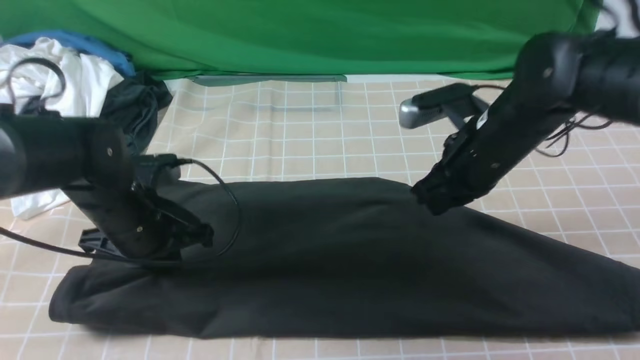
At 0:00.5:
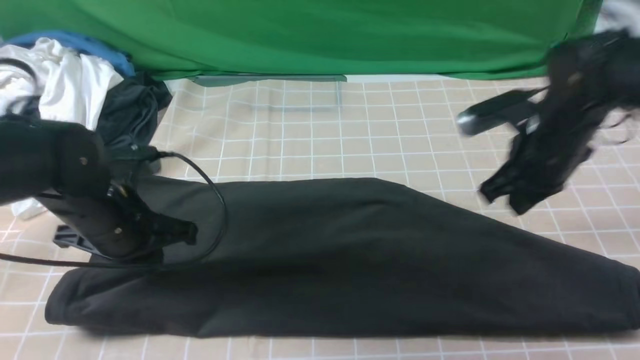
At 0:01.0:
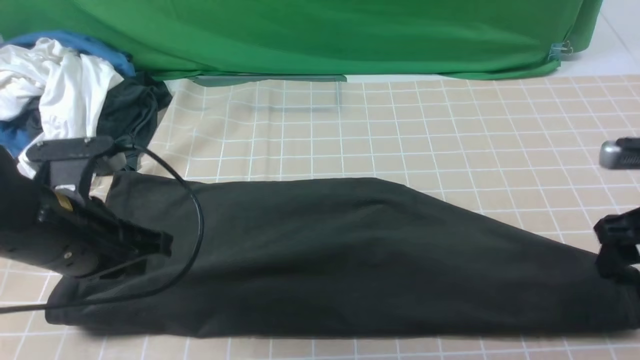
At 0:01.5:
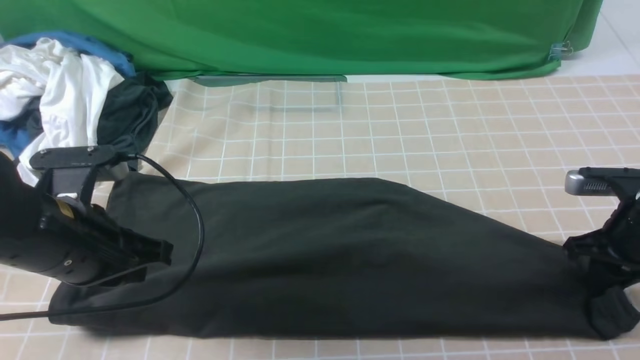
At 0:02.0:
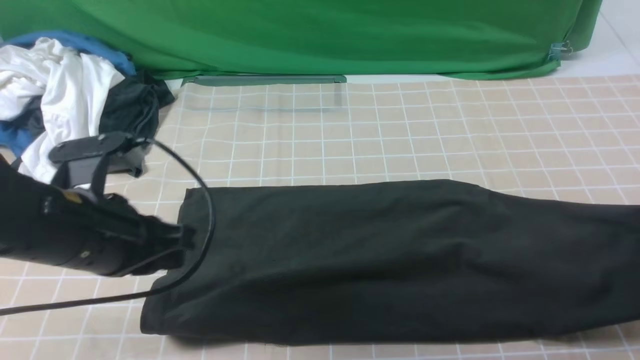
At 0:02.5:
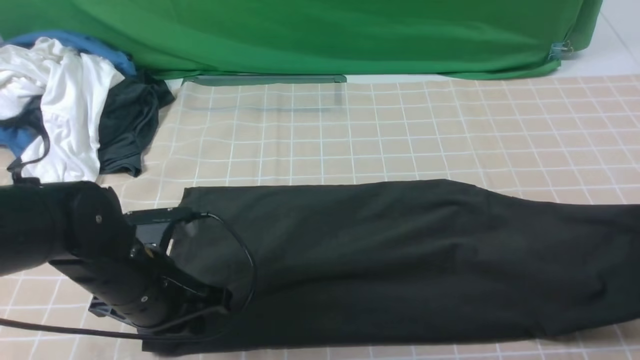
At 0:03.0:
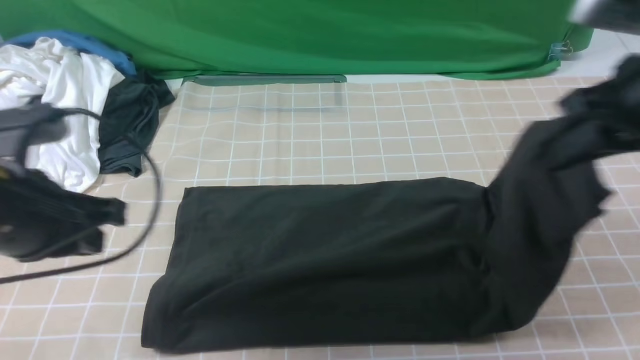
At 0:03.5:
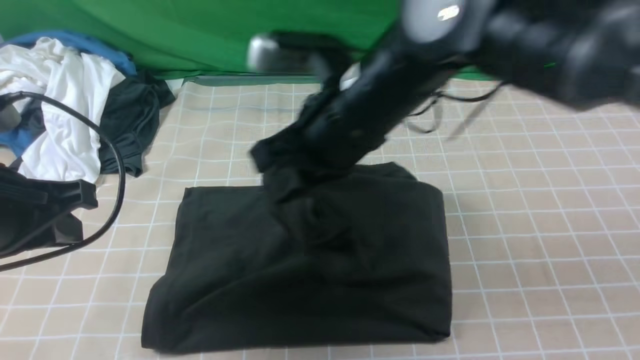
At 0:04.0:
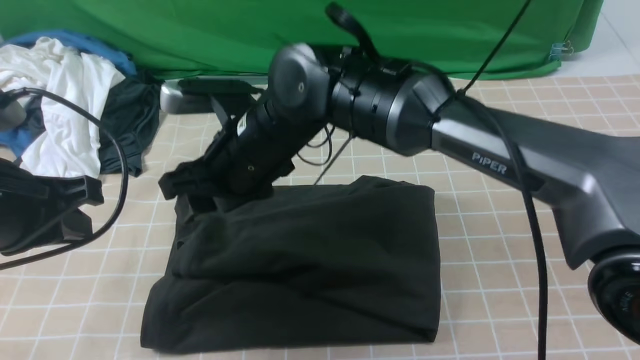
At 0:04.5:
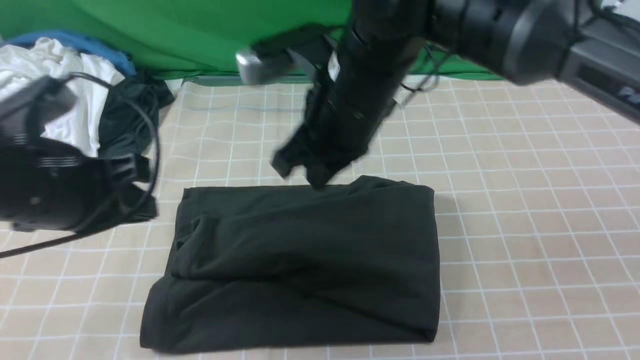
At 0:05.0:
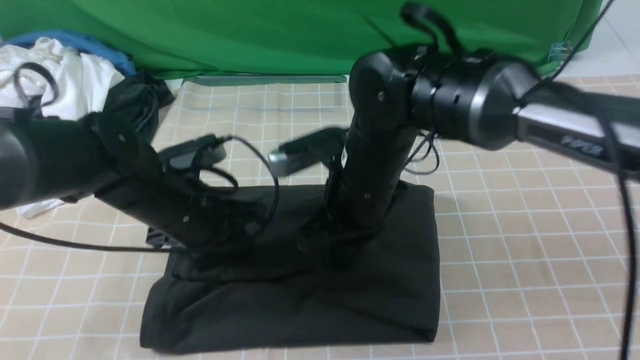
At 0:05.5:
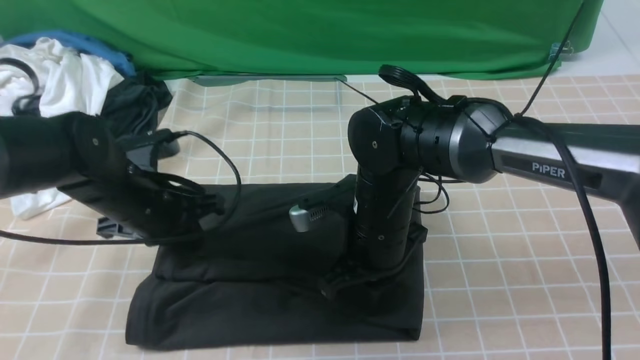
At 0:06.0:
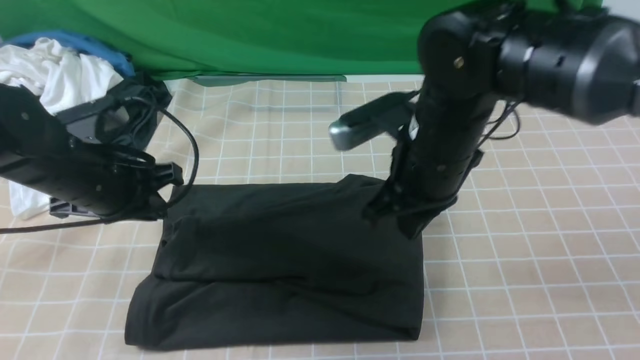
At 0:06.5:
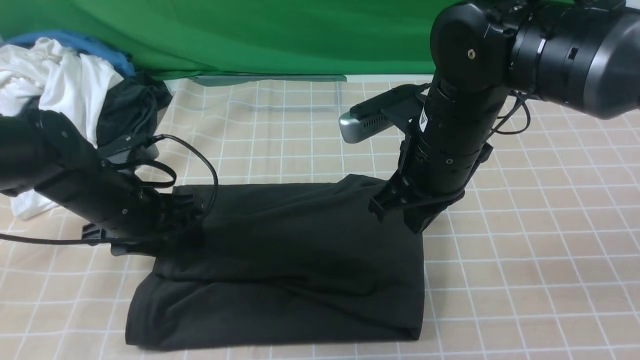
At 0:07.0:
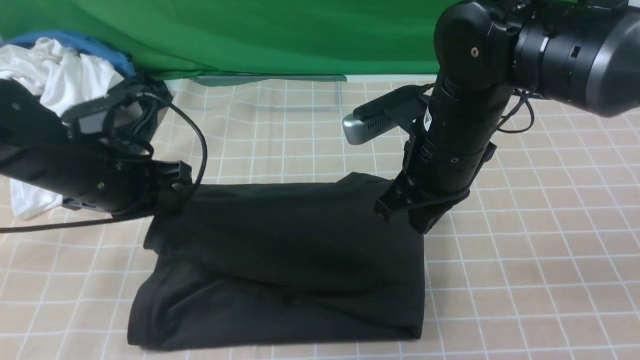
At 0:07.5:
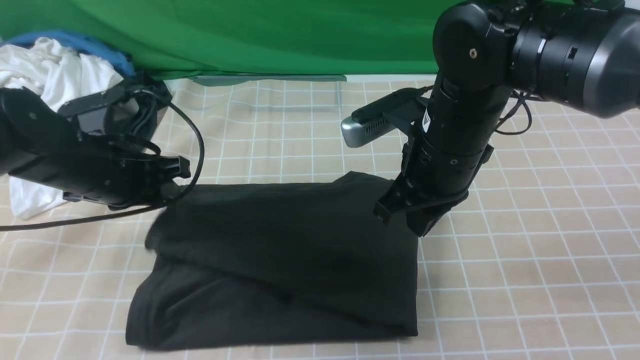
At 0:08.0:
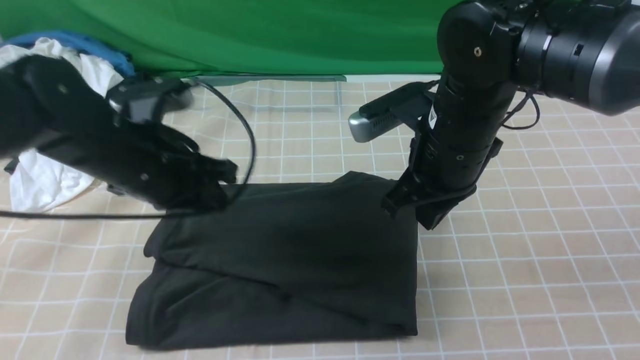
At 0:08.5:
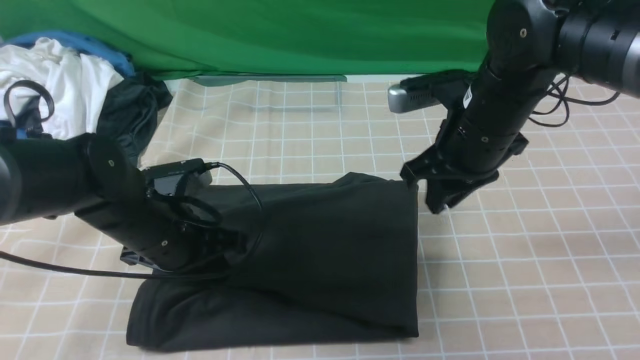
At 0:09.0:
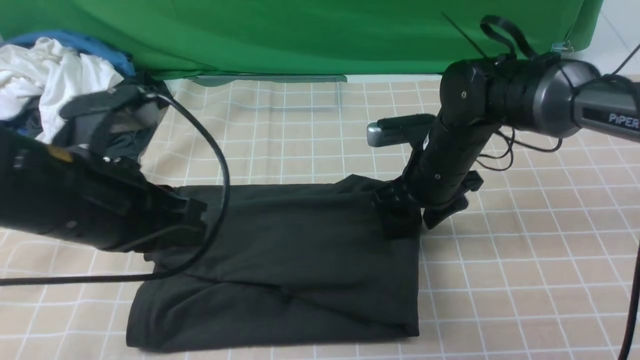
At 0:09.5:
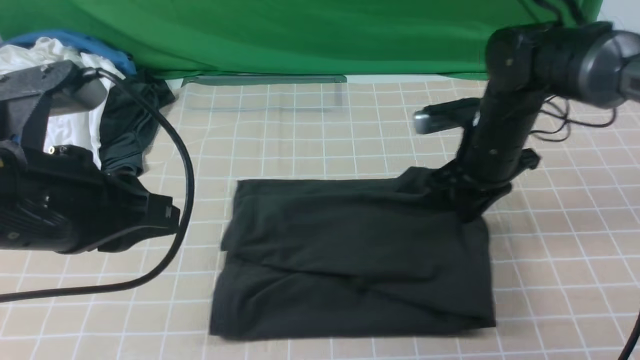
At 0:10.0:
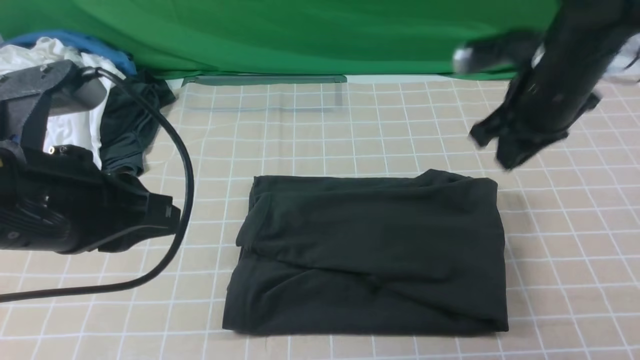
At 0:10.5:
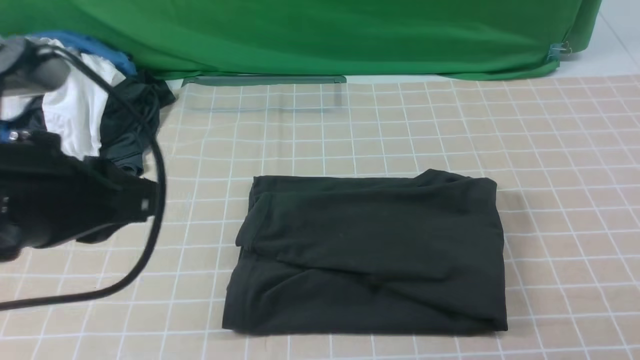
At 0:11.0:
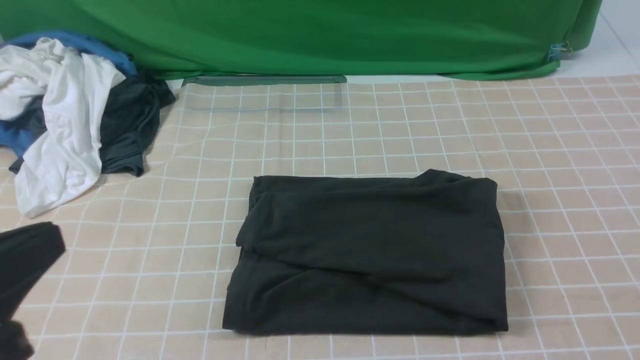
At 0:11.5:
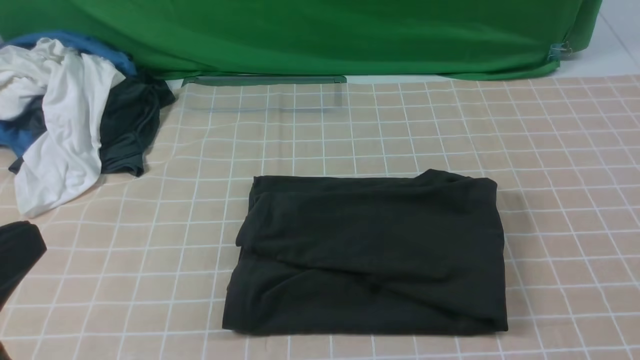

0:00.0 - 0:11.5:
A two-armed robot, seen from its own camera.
Step, 0:02.0 - 0:04.0: use the right arm to drag the right edge of the fabric to the left and folds it over the left edge.
0:00.0 - 0:02.0: The left gripper is displaced backward and upward by some 10 cm; the right gripper moves to the right, some 20 cm, and opens, then closes once more.
0:02.0 - 0:04.0: The left gripper goes roughly 10 cm to the left and upward, while the right gripper moves to the left, some 40 cm, and opens.
0:04.0 - 0:06.0: The left gripper travels forward and downward by some 15 cm. Meanwhile the right gripper shifts roughly 15 cm to the right, and closes.
0:06.0 - 0:07.5: The grippers move only a little.
0:07.5 - 0:09.5: The right gripper heads to the right, forward and downward, covering some 10 cm, and opens, then closes again. The left gripper is displaced backward and upward by some 20 cm, and closes its fingers.
0:09.5 - 0:11.5: The left gripper is displaced backward by some 15 cm; the right gripper shifts some 35 cm backward and upward.

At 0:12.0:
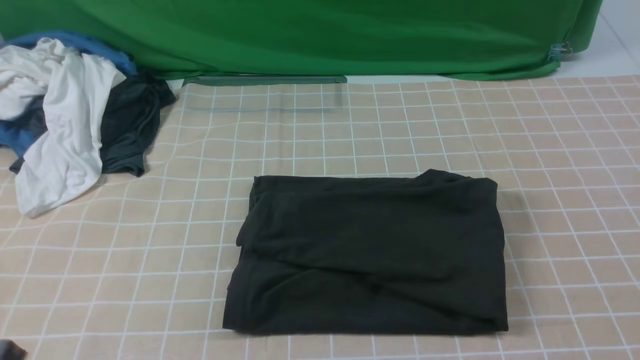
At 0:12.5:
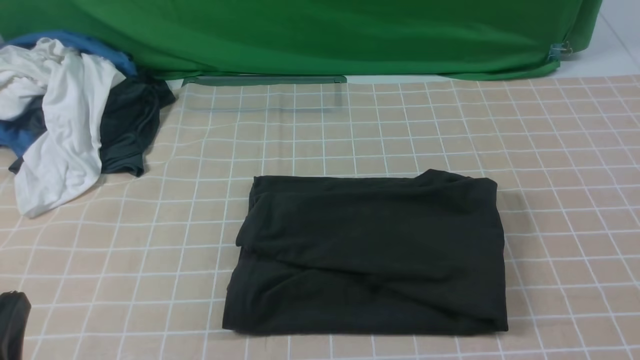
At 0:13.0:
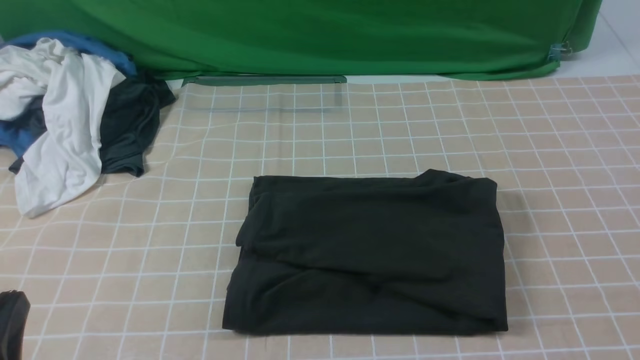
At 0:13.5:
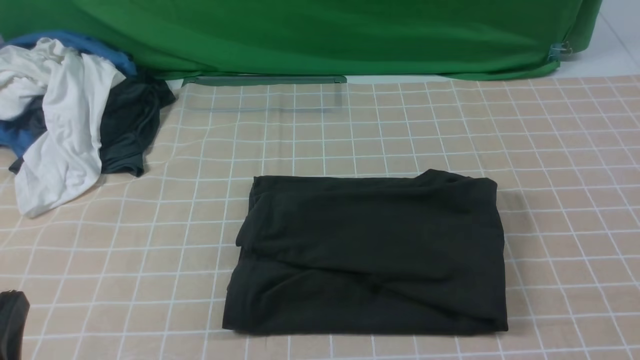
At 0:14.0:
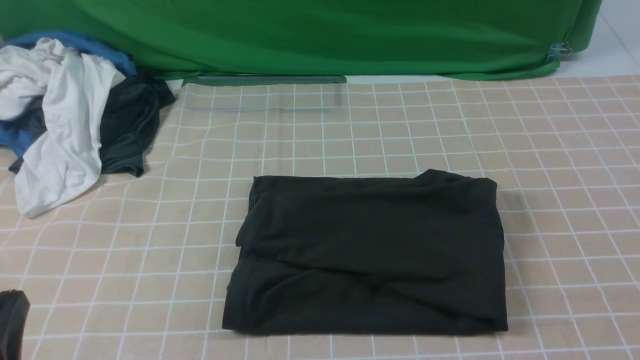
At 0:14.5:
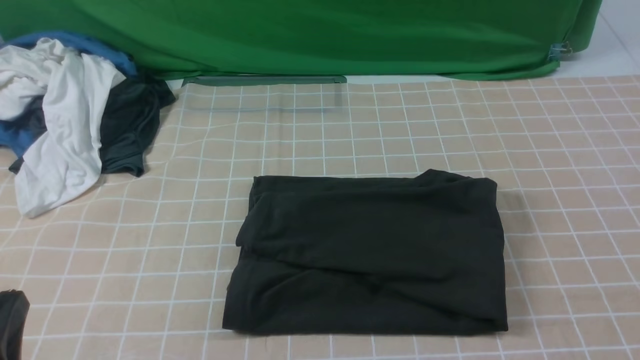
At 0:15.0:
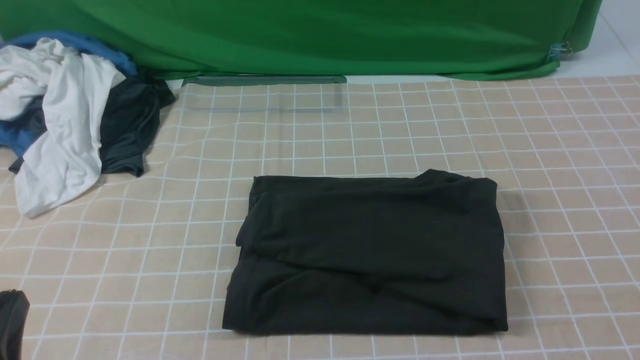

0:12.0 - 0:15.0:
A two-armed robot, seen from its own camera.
0:12.0 - 0:13.5: The left gripper shifts some 5 cm downward.

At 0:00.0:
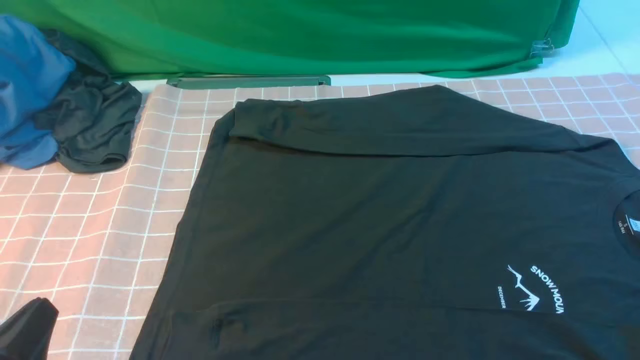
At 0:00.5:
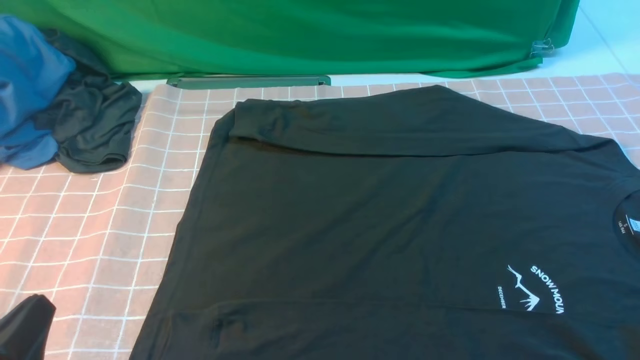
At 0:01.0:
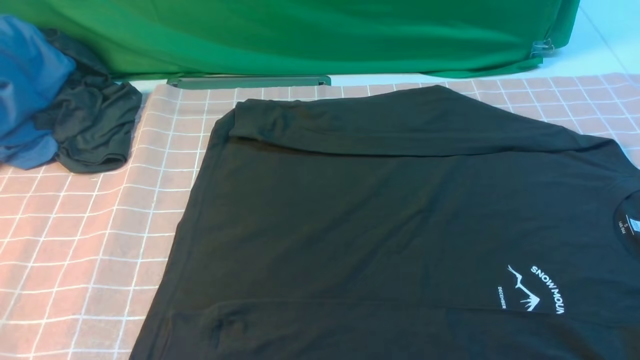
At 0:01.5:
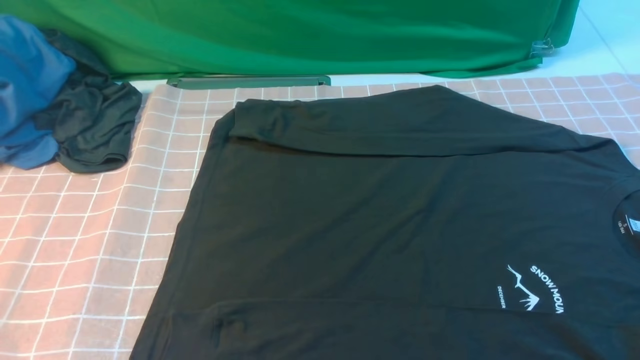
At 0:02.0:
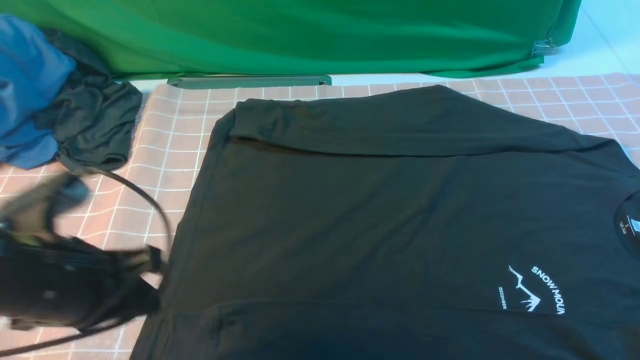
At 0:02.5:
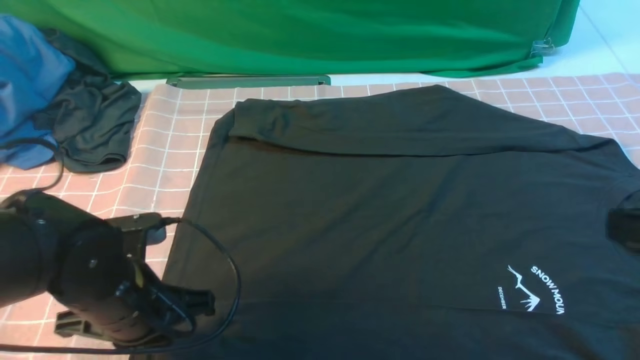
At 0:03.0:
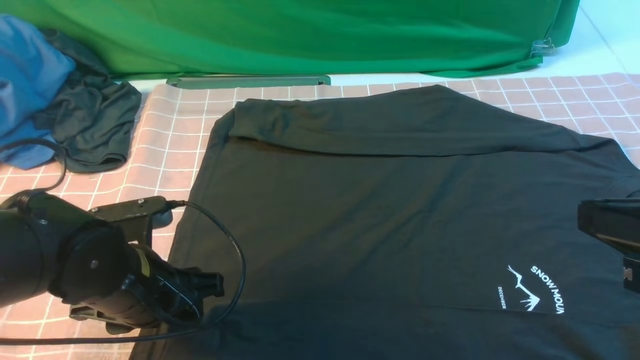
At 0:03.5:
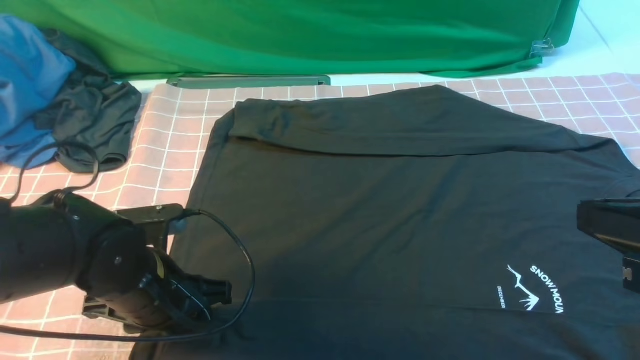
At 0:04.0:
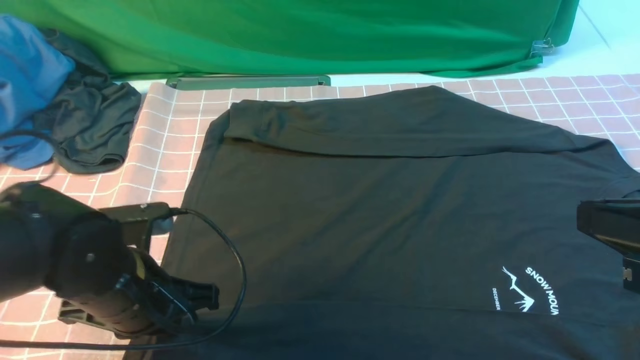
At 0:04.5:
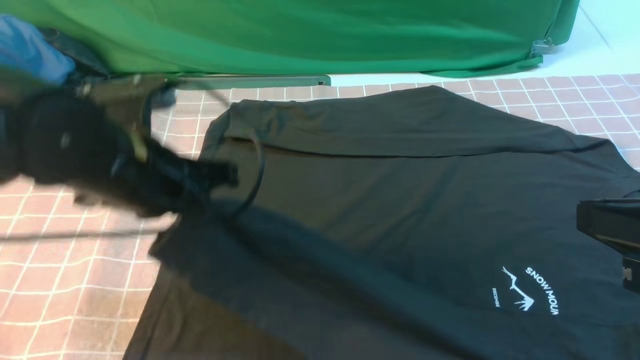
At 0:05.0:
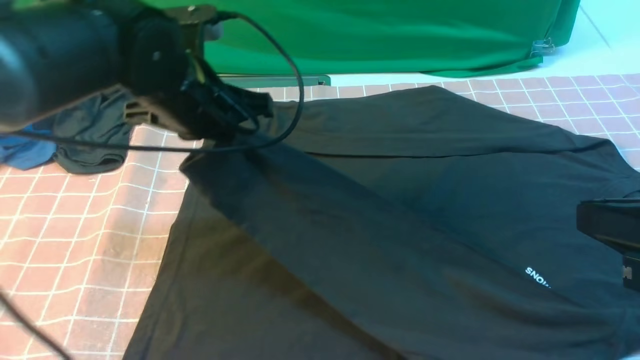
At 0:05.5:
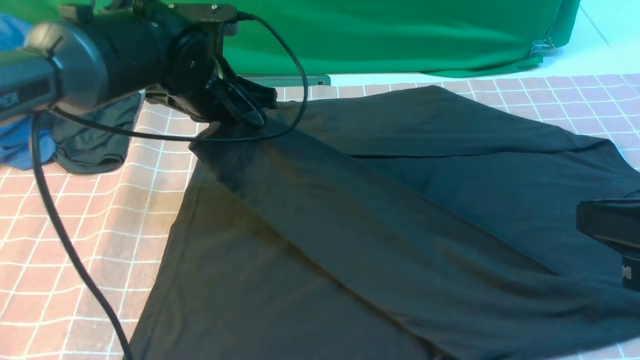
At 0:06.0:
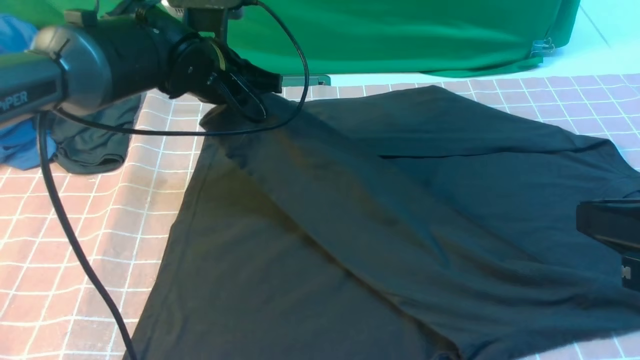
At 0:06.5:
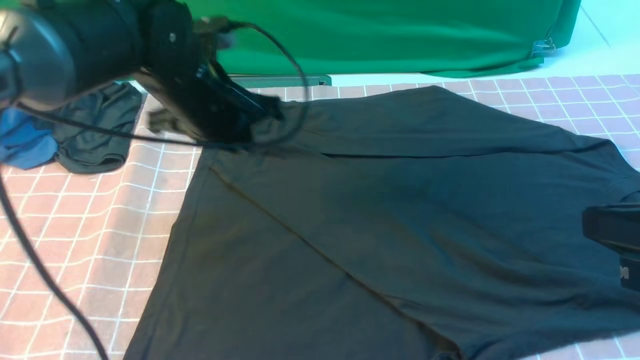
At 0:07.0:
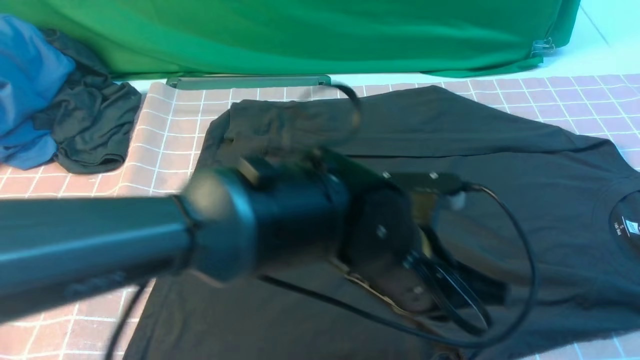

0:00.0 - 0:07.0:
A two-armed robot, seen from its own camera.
Step, 0:00.0 - 0:03.5: use the left arm to clamp the cuff closest to it.
Step, 0:04.0 - 0:06.0: use the left arm to drag and place the cuff at the centered position on the left edge of the fabric.
0:00.0 - 0:02.0: The left gripper travels forward and upward by approximately 15 cm.
0:02.0 - 0:03.5: The right gripper shifts roughly 10 cm forward and to the left. Meanwhile the left gripper travels downward by some 10 cm, and opens up.
0:03.5 - 0:05.0: The left gripper is displaced upward and forward by roughly 20 cm, and closes its fingers.
0:05.0 - 0:07.0: The left gripper travels to the right and backward by approximately 20 cm.
